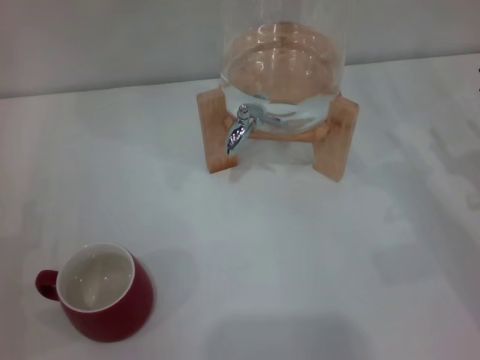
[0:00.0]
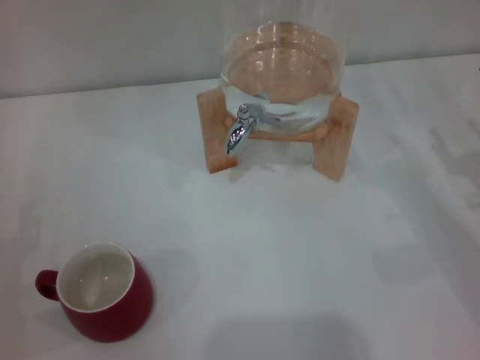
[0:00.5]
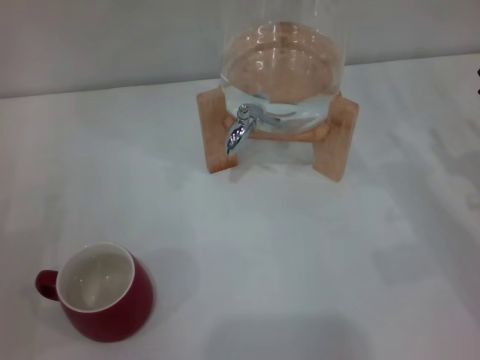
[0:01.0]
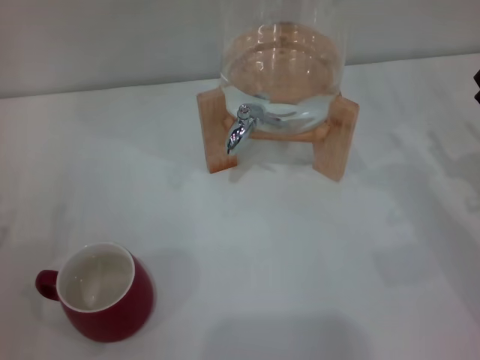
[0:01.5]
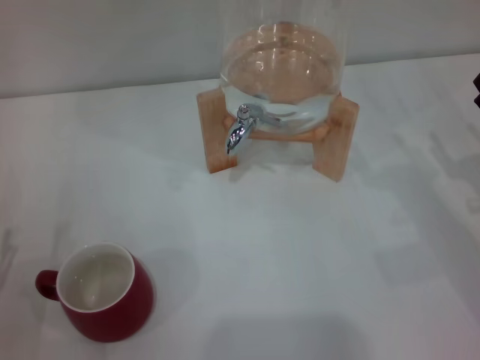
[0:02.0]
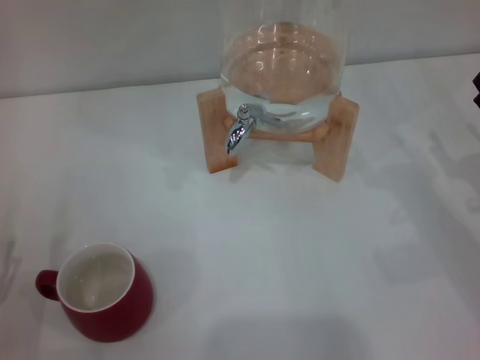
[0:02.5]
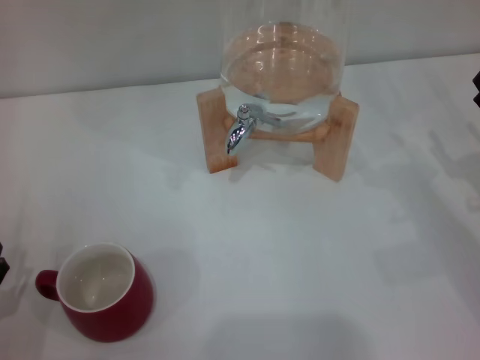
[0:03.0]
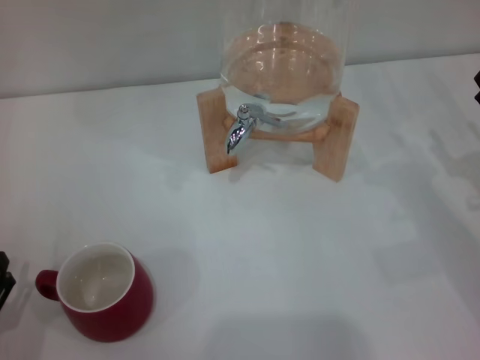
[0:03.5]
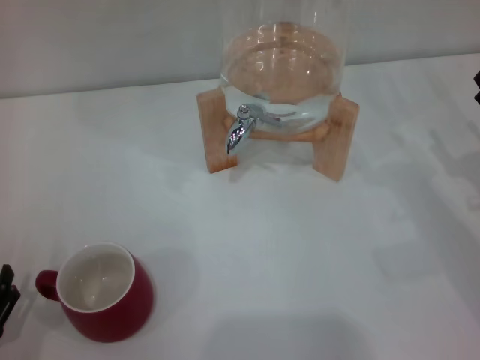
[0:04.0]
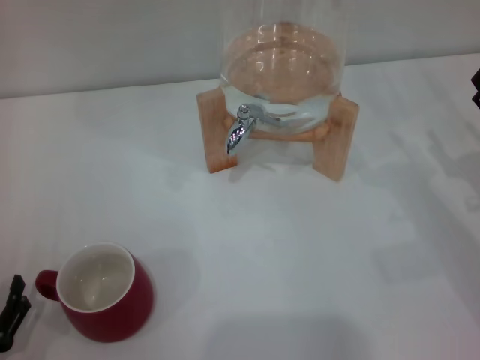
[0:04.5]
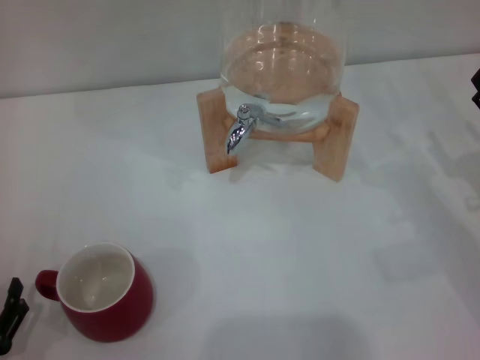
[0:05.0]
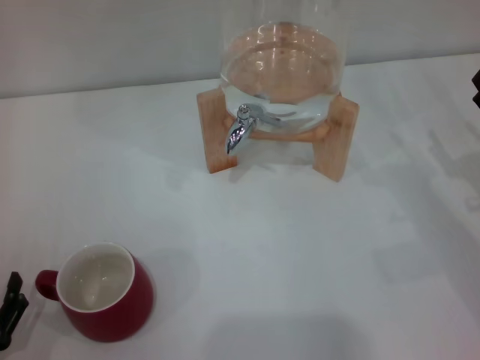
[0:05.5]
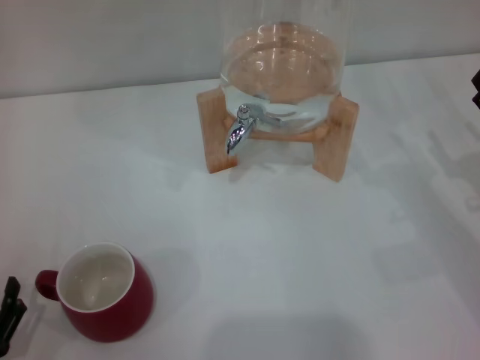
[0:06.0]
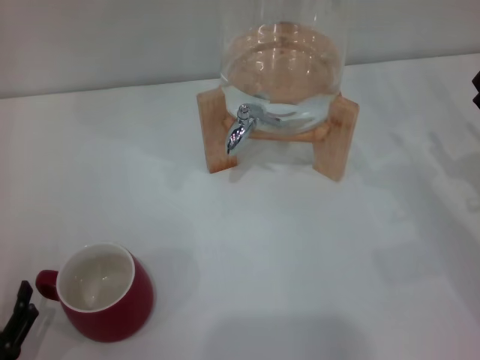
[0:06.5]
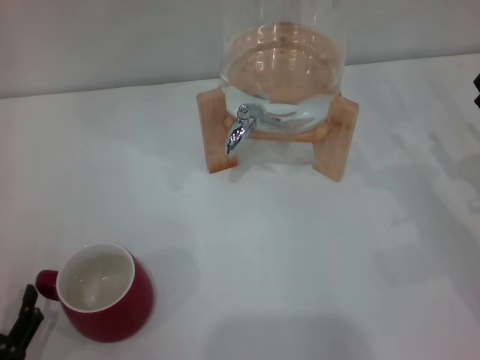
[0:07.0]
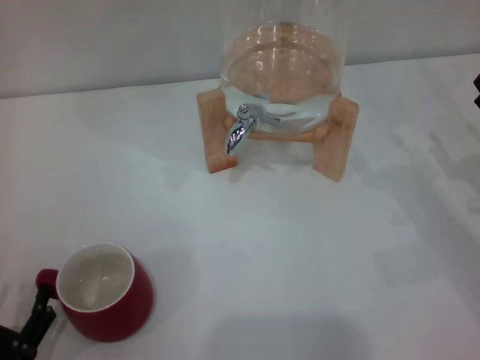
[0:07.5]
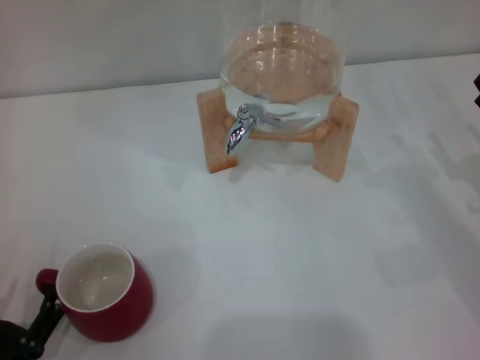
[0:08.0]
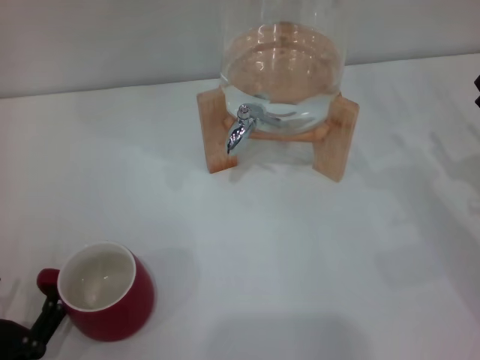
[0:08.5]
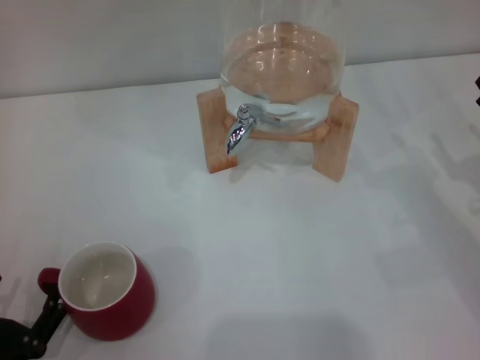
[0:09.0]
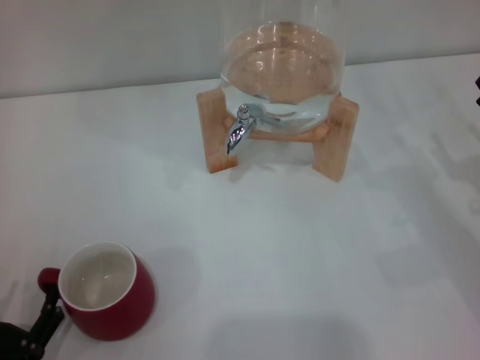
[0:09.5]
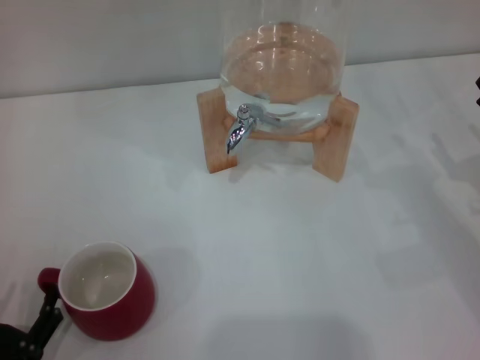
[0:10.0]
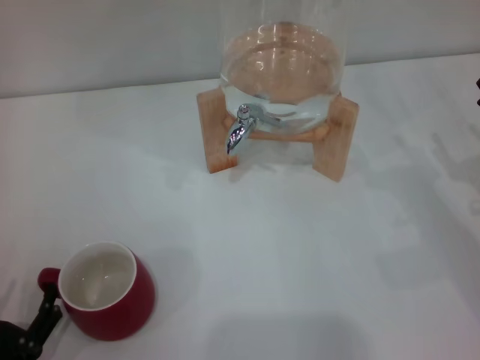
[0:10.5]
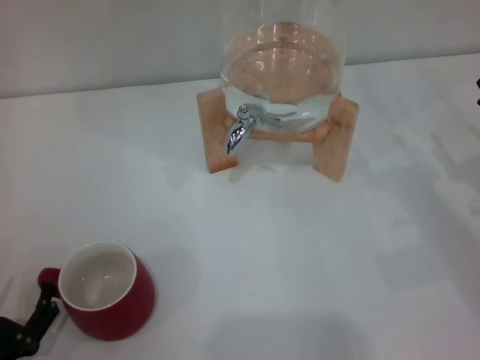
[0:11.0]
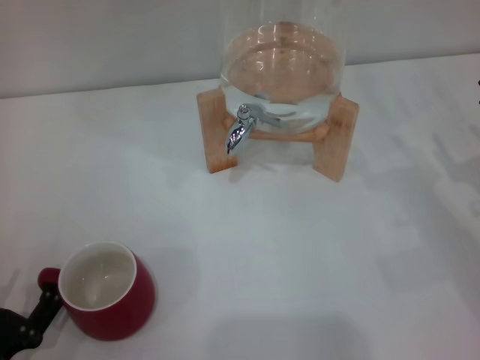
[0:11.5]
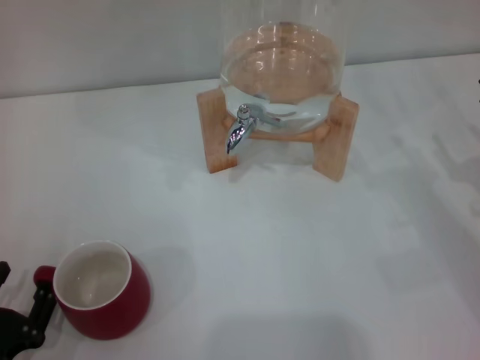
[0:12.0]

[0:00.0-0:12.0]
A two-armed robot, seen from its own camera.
Task of the whole recording: the left gripper pick up the red cup and place it horizontally under the faucet, the right gripper turn on the faucet to fill the cup, and then turn off the faucet.
0:06.0 to 0:08.0: The grippers make only small movements.
0:08.0 to 0:10.0: Neither gripper changes place.
0:10.0 to 0:12.0: There are only small adjustments of the grippers.

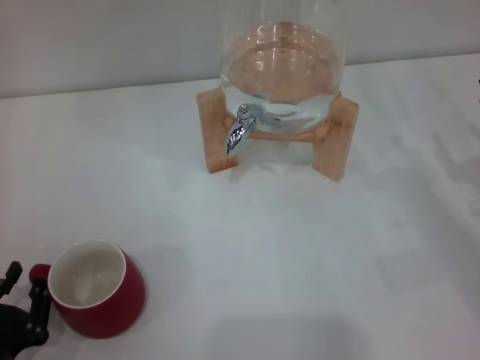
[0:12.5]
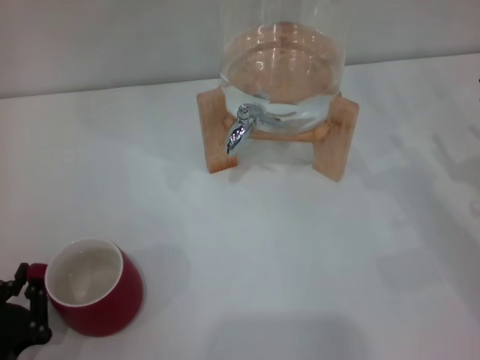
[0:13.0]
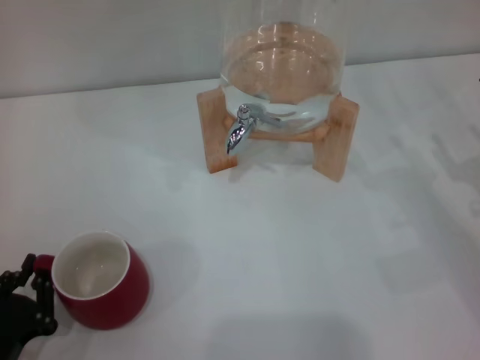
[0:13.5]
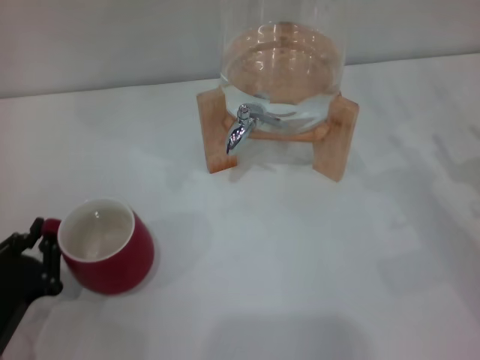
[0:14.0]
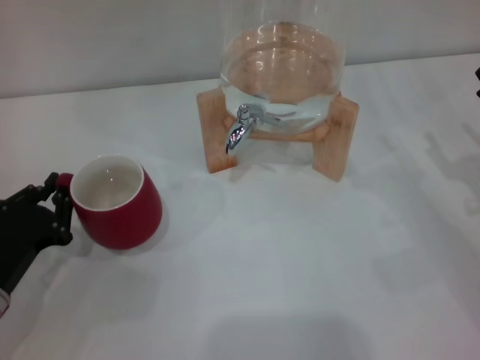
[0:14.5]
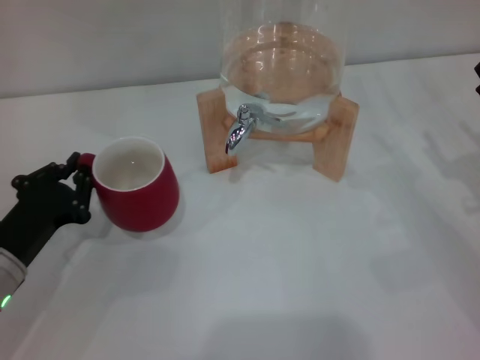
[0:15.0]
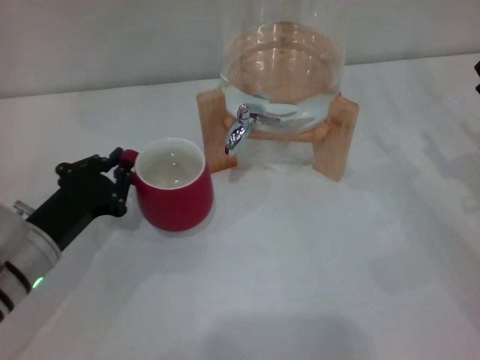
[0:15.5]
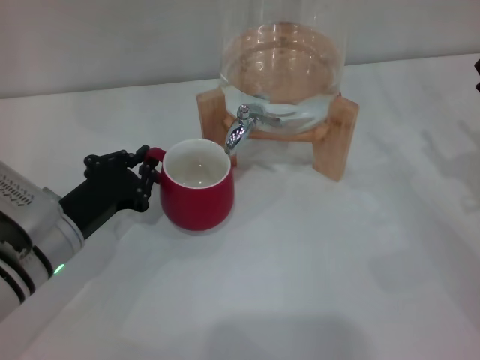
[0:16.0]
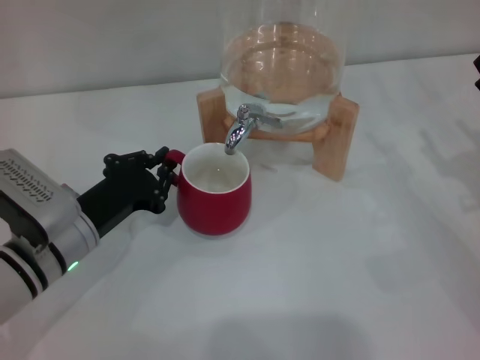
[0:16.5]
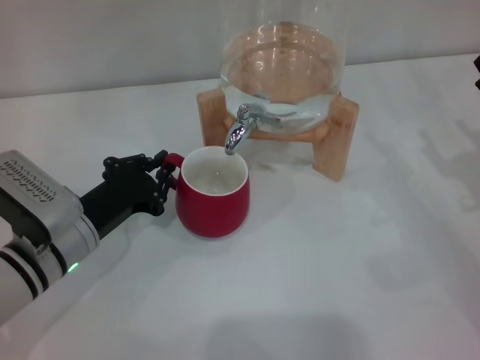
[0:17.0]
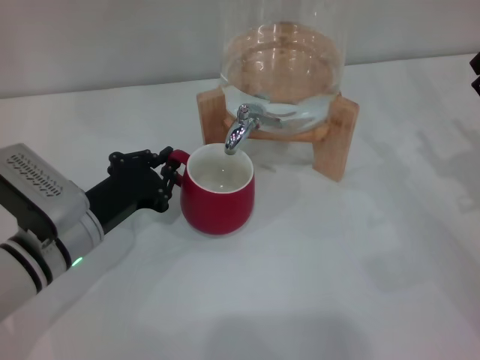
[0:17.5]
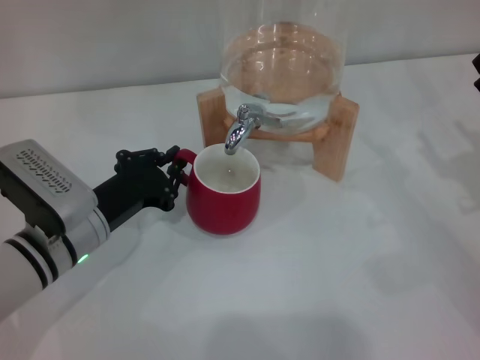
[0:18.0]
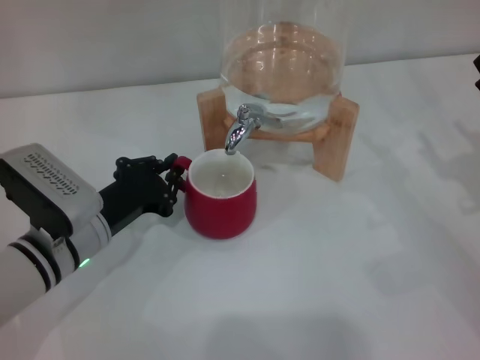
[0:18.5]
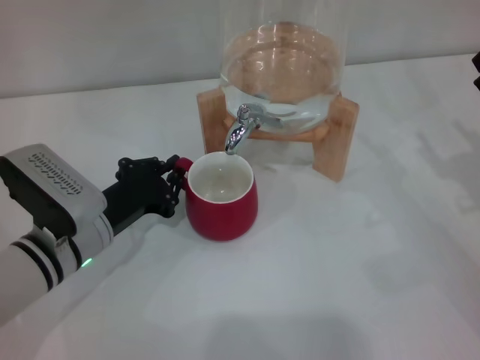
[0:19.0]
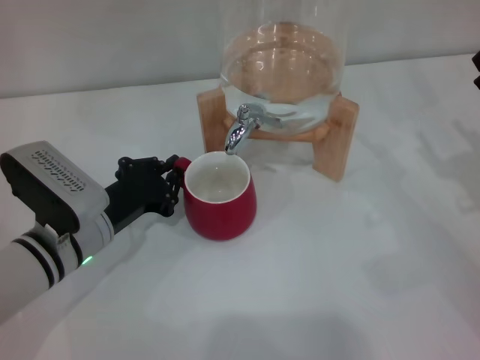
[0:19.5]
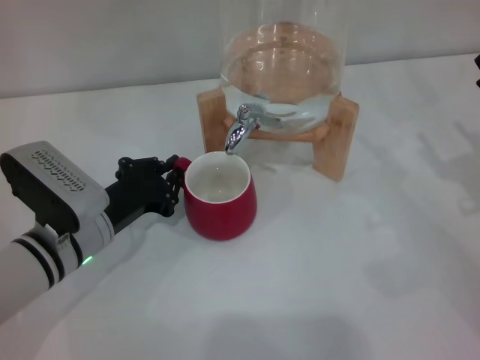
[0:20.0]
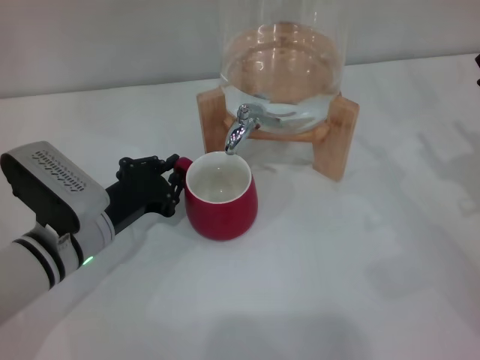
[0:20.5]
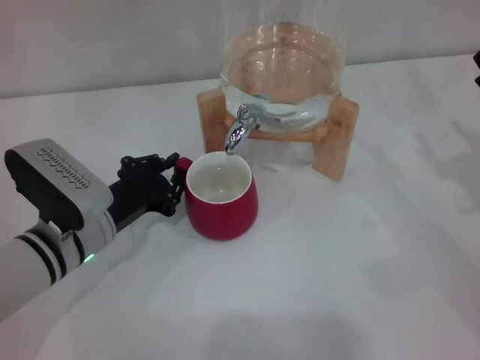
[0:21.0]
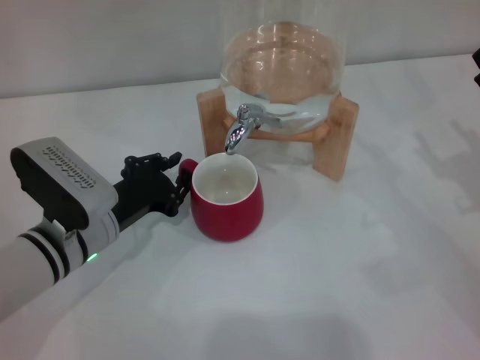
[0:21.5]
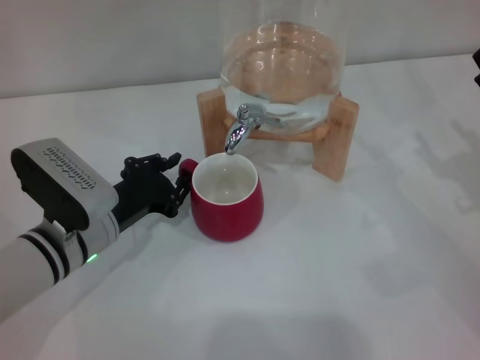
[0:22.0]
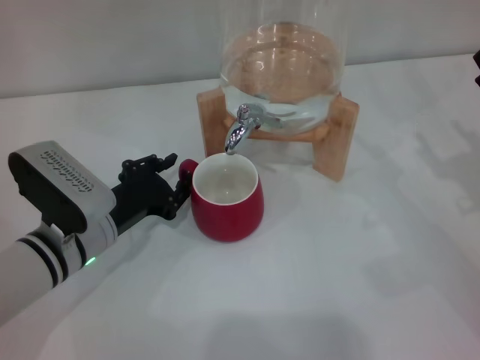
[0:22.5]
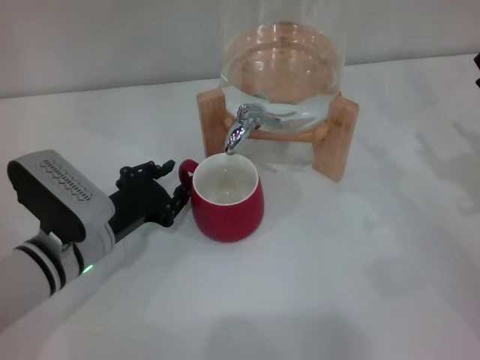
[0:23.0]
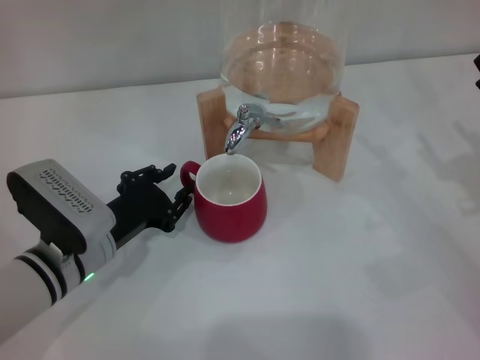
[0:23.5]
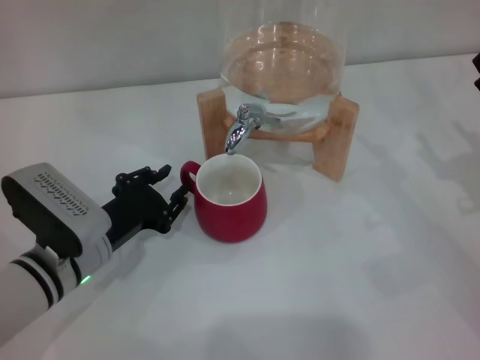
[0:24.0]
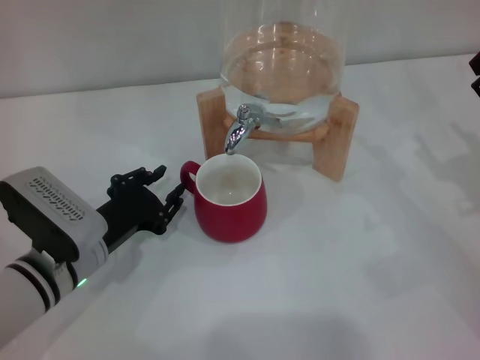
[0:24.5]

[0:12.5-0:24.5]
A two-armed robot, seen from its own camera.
Task of the whole recording: the left gripper pick up the red cup and place it horizontally under the faucet, the right gripper turn on the faucet to fill the cup, and then turn off the faucet.
0:12.5 to 0:14.5: The left gripper goes approximately 10 cm forward.
0:14.5 to 0:16.5: The left gripper heads to the right and forward, covering about 10 cm.
0:16.5 to 0:18.5: Both grippers stay put.
0:18.5 to 0:22.5: The two grippers keep their place.
0:22.5 to 0:24.5: The grippers make only small movements.

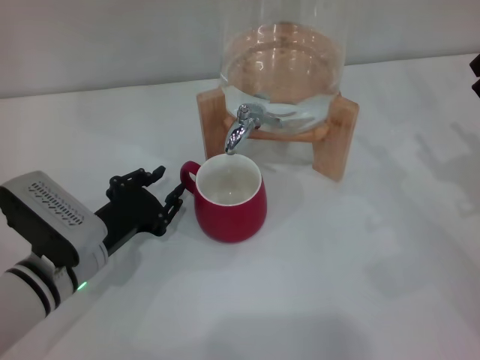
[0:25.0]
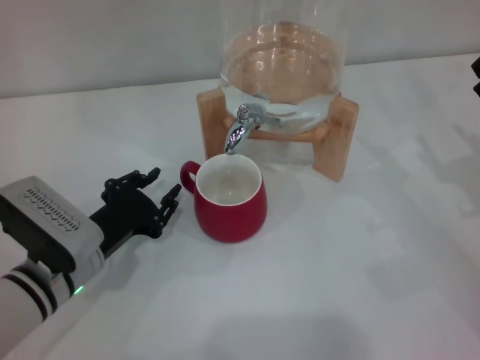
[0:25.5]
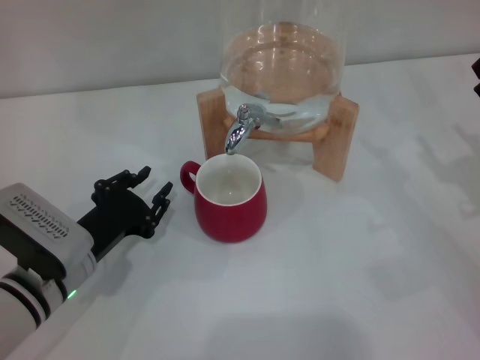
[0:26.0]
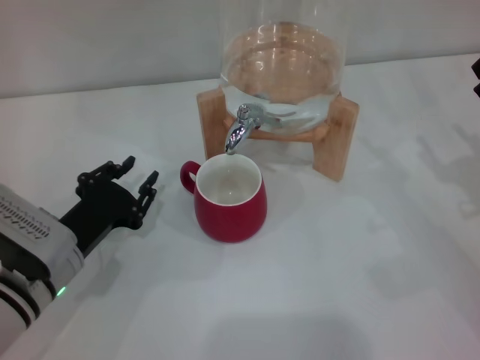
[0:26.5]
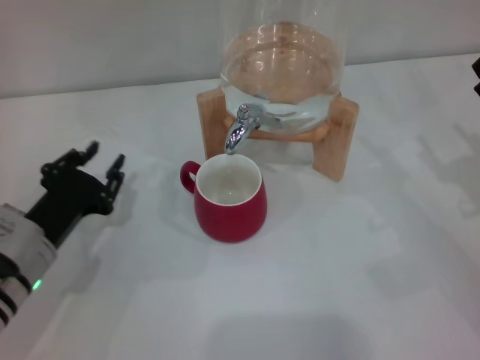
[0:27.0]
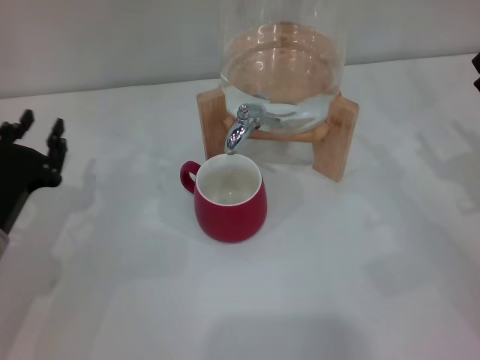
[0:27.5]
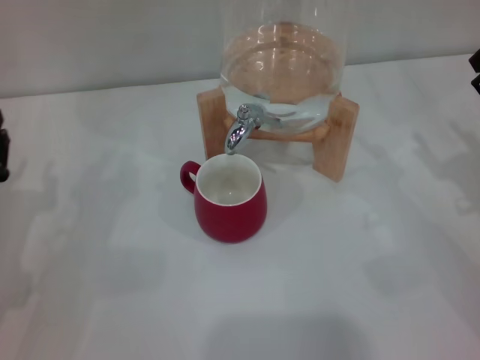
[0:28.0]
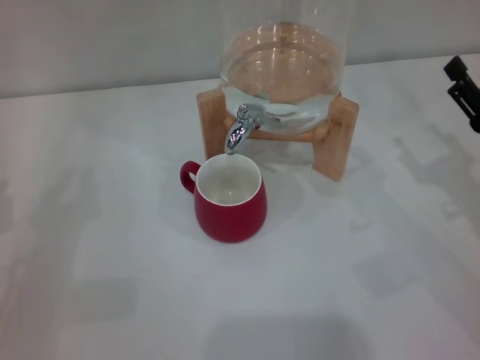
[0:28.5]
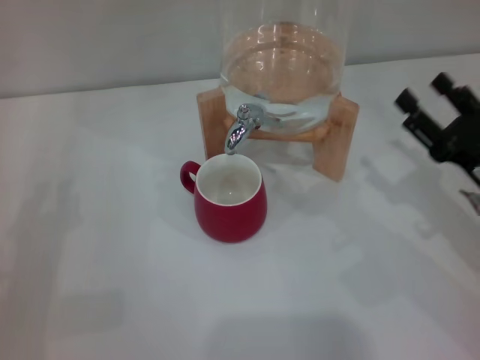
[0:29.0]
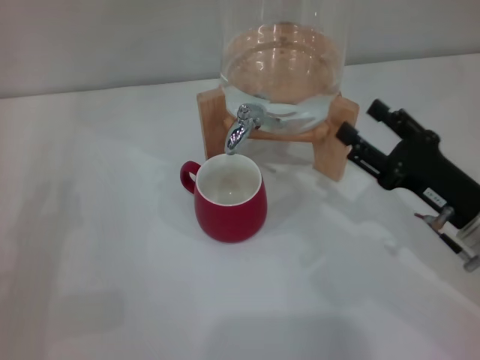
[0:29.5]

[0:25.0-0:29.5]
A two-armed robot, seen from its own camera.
Task of the whole recording: the left gripper pick up the red cup and place it horizontally under the faucet, the right gripper turn on the faucet to fill the cup, and then turn off the faucet.
0:25.0 to 0:27.0: There are only small adjustments of the grippers.
0:27.0 to 0:29.5: The right gripper heads to the left, covering roughly 10 cm. Meanwhile the left gripper heads to the left and backward, covering roughly 10 cm.
